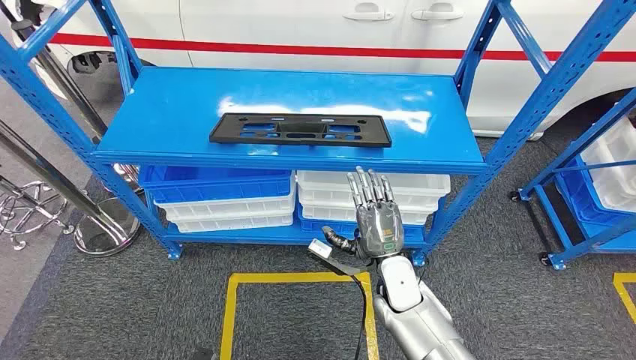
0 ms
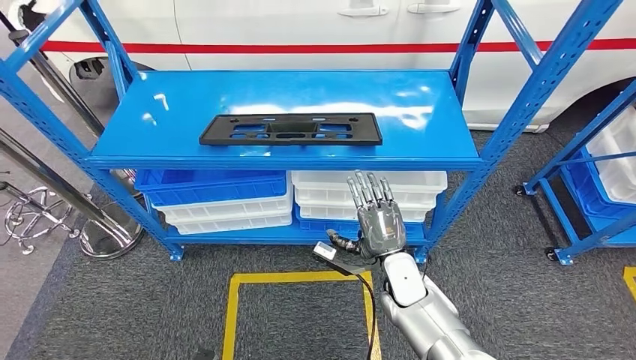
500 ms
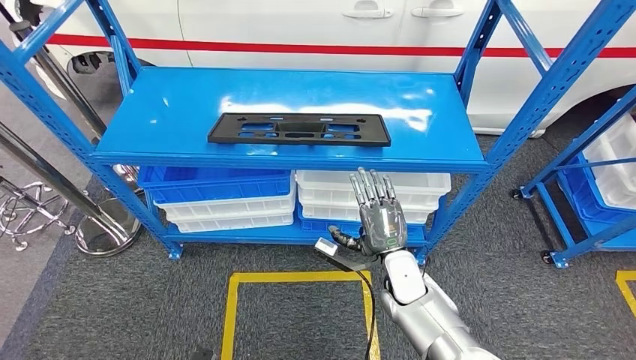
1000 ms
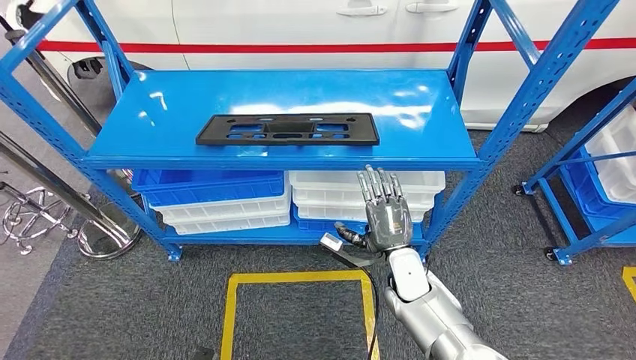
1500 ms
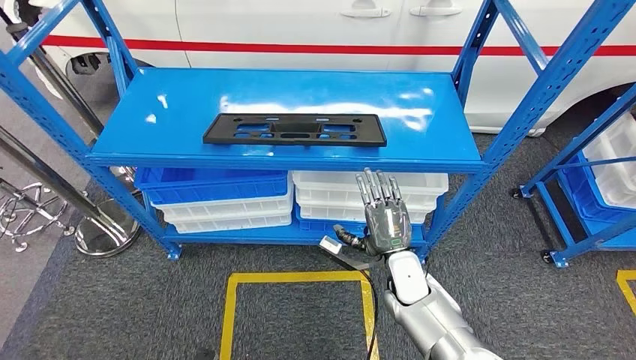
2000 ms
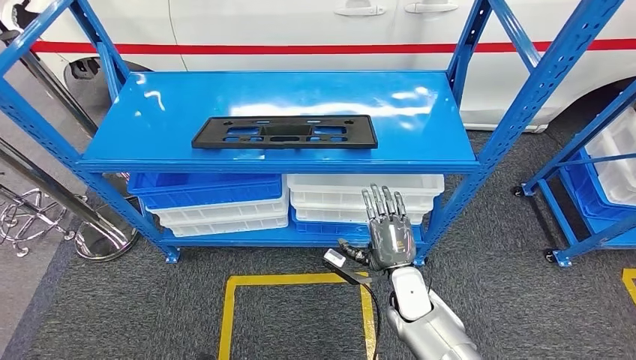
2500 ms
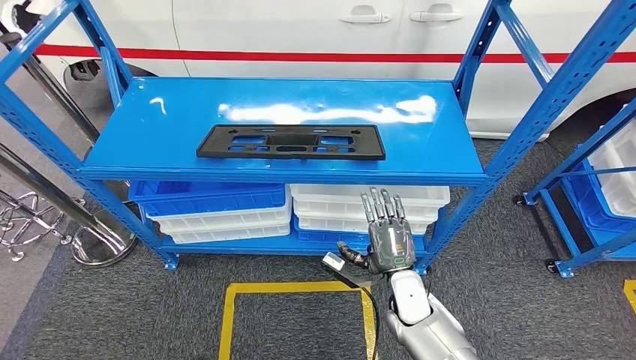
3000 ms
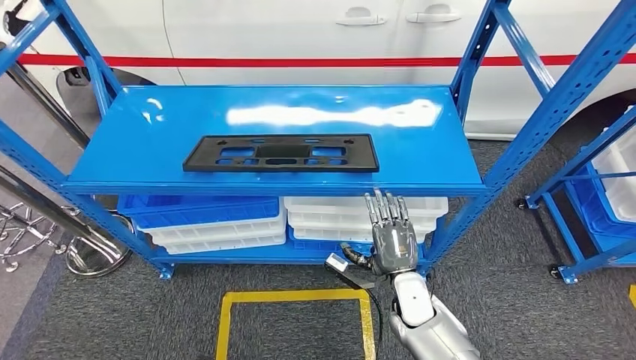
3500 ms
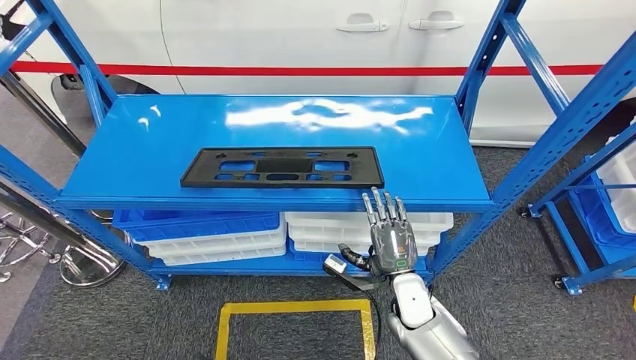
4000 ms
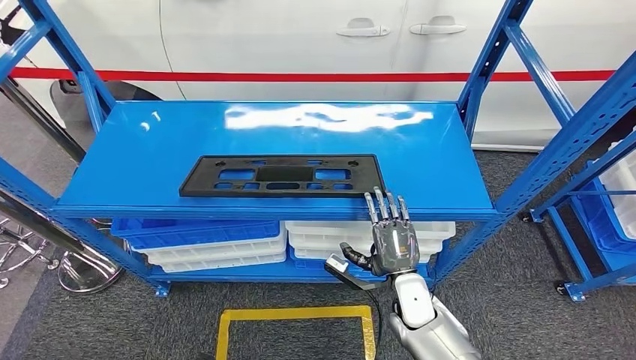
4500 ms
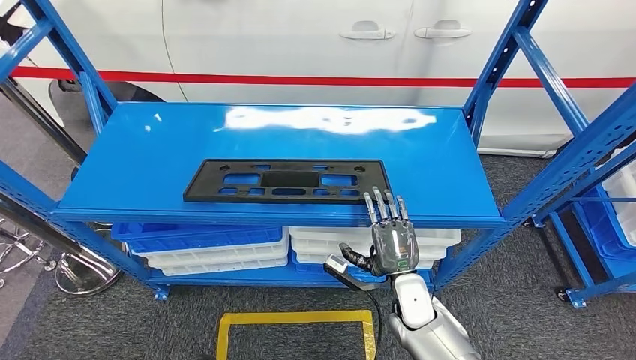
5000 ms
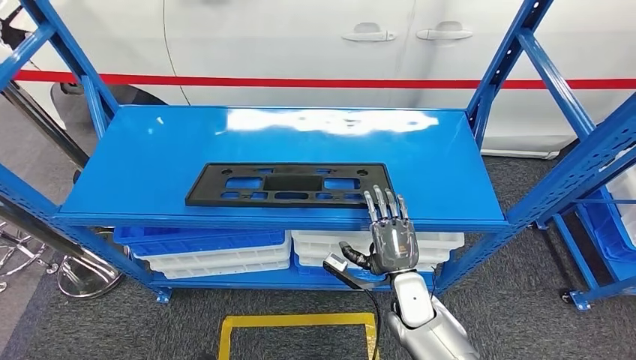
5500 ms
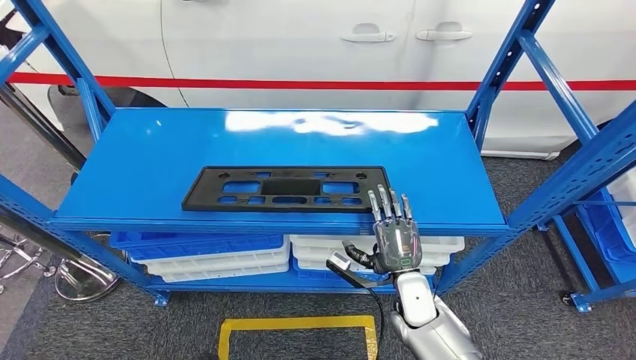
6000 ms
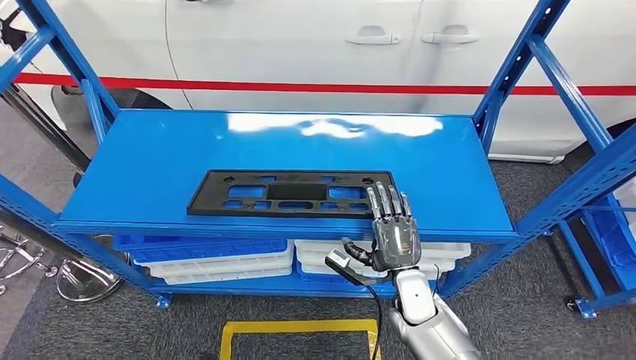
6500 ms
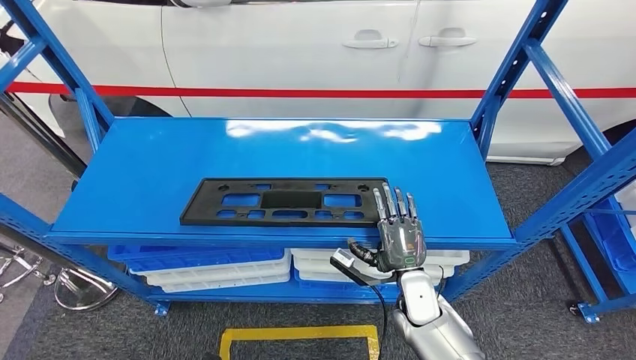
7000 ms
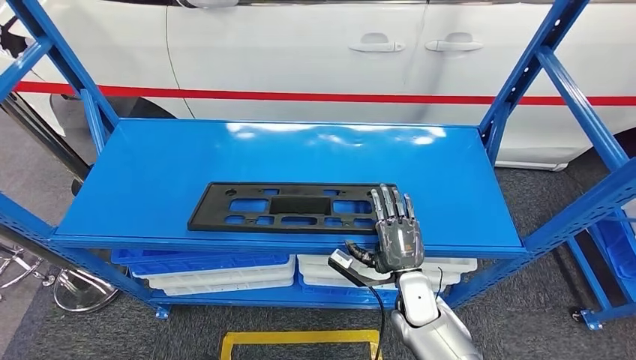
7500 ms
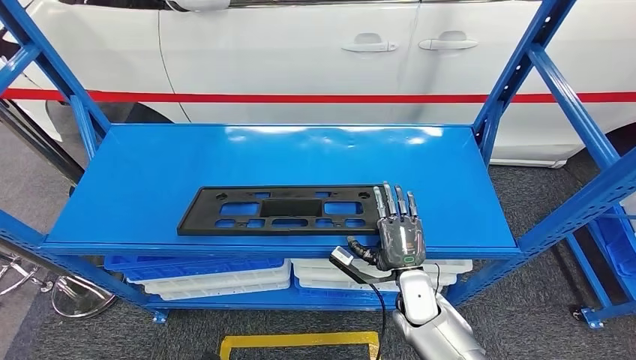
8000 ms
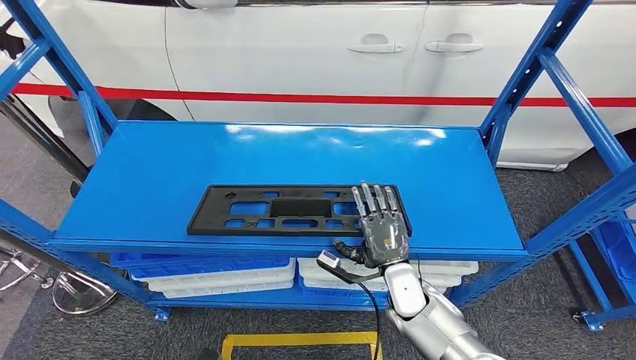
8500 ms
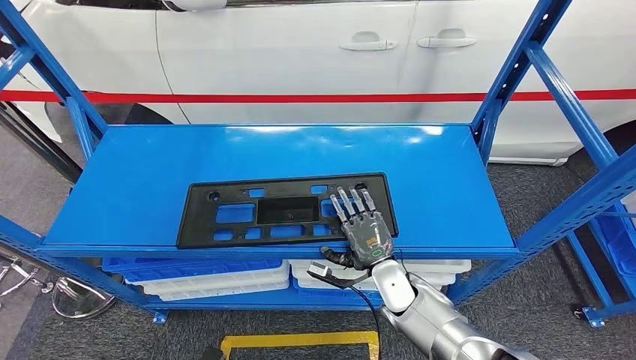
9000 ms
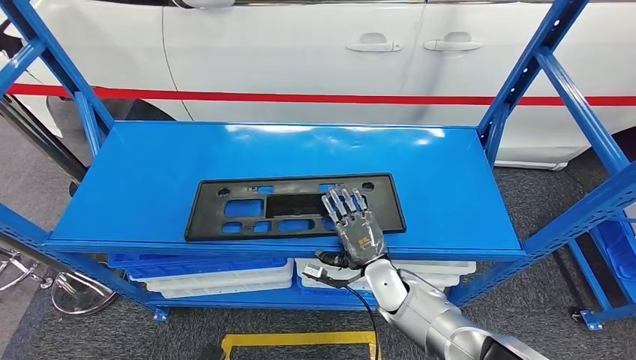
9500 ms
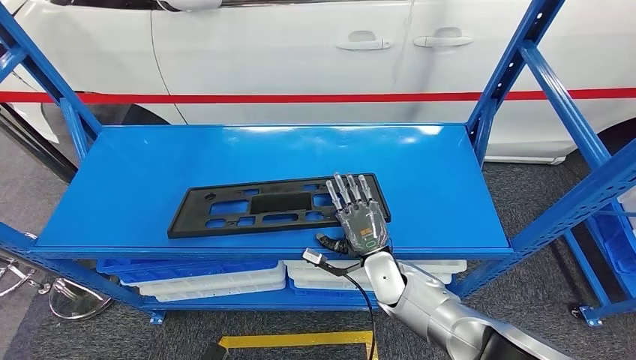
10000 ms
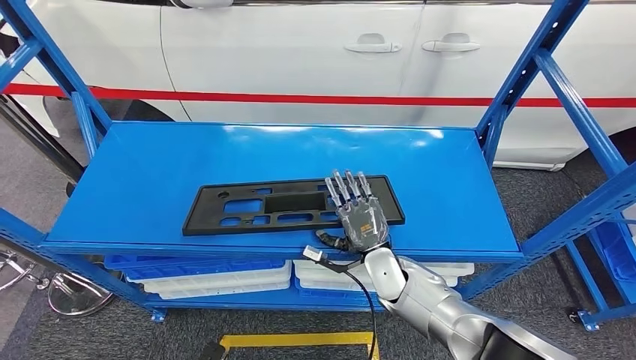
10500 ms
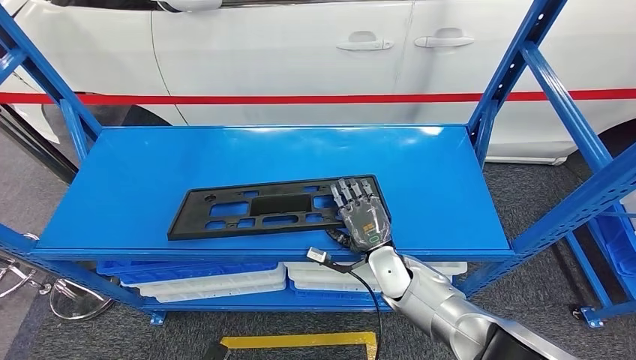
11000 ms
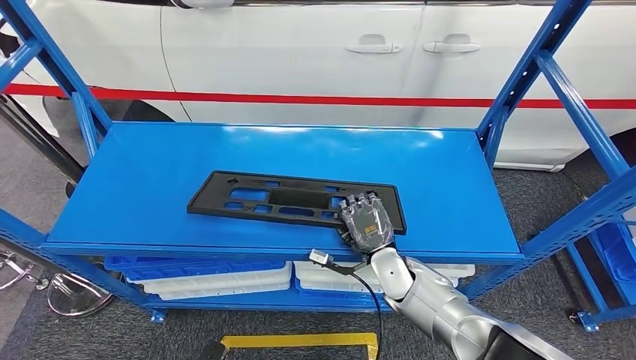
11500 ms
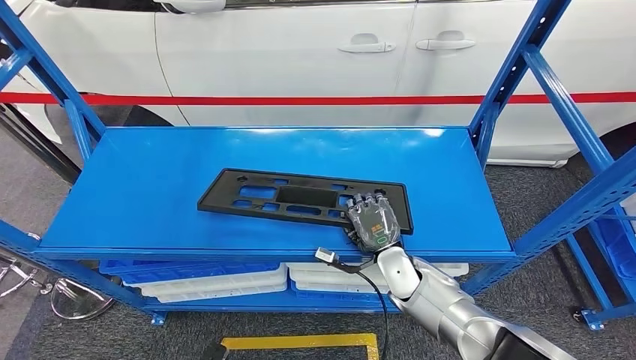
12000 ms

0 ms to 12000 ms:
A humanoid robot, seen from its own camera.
10000 ms to 12000 ms: There are only small adjustments of the hands.

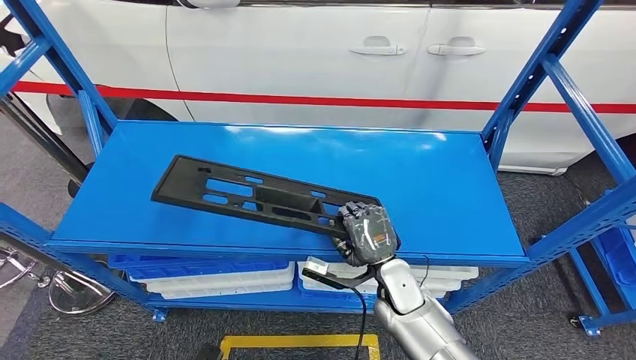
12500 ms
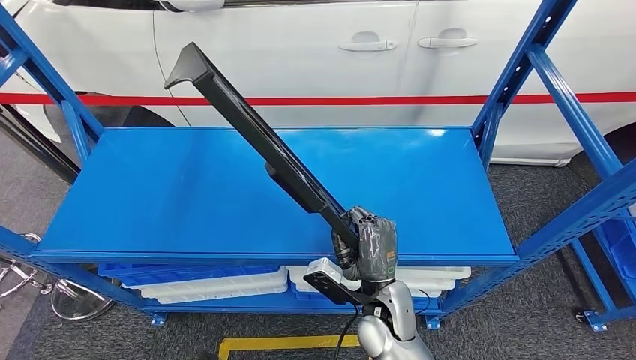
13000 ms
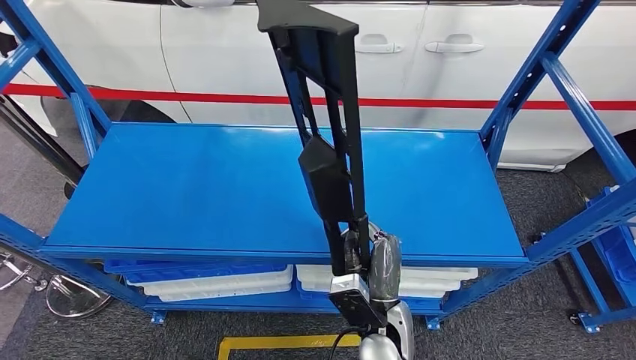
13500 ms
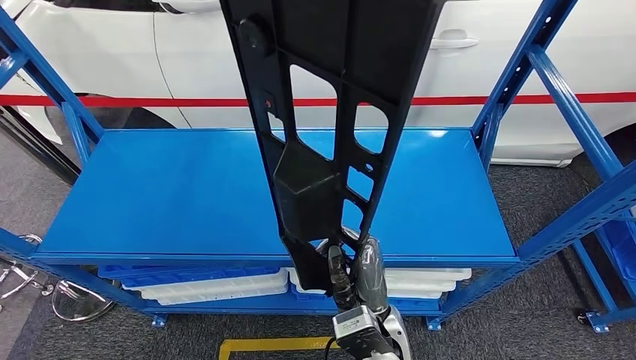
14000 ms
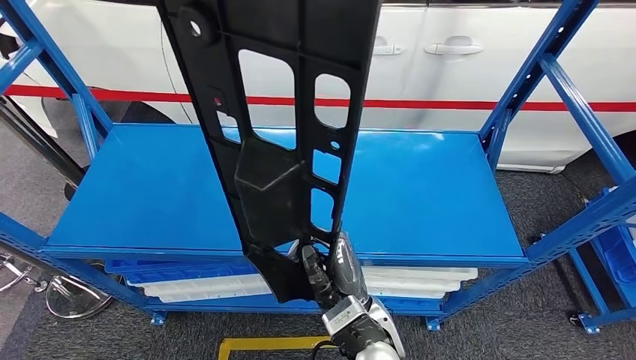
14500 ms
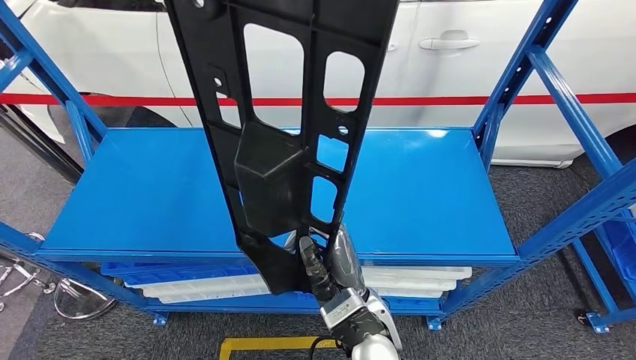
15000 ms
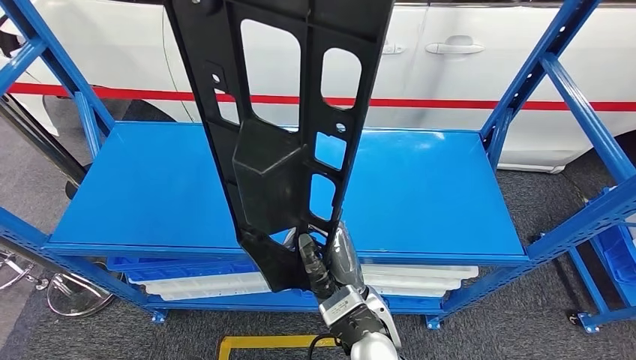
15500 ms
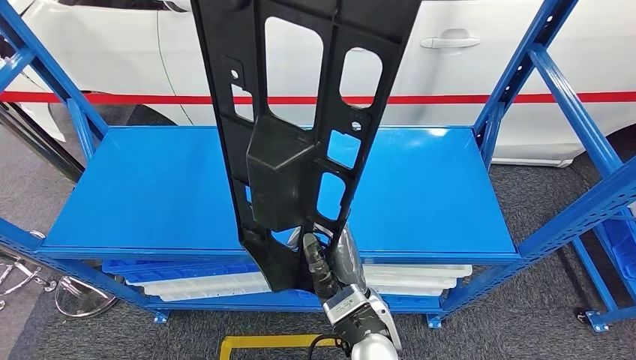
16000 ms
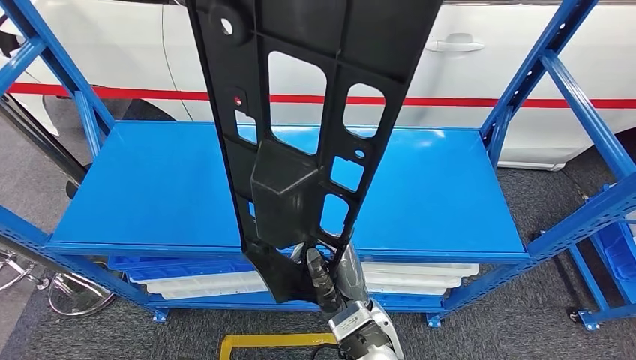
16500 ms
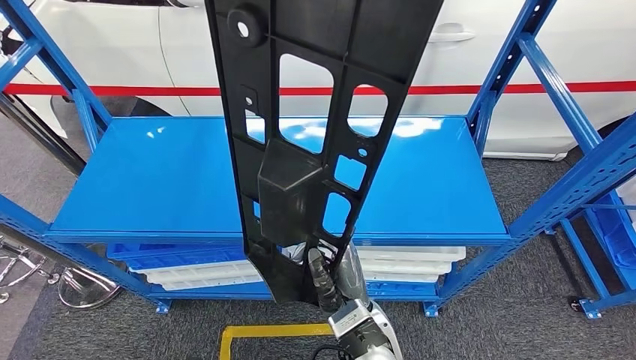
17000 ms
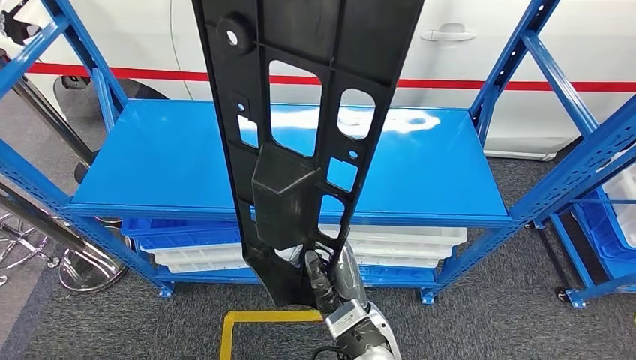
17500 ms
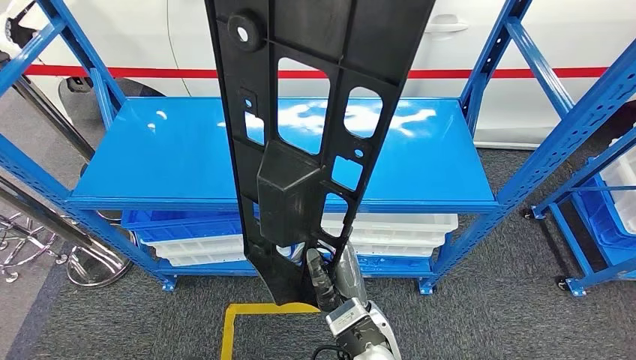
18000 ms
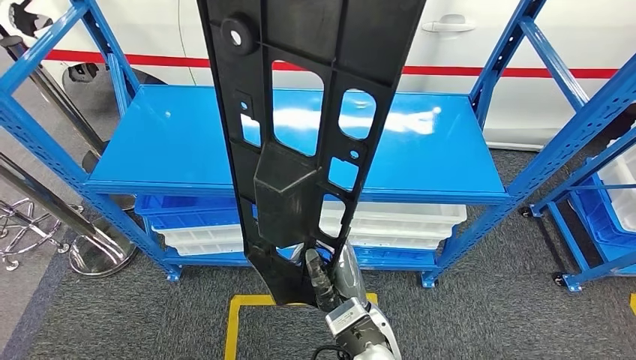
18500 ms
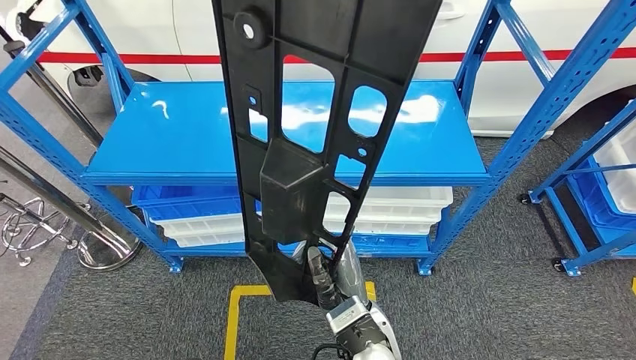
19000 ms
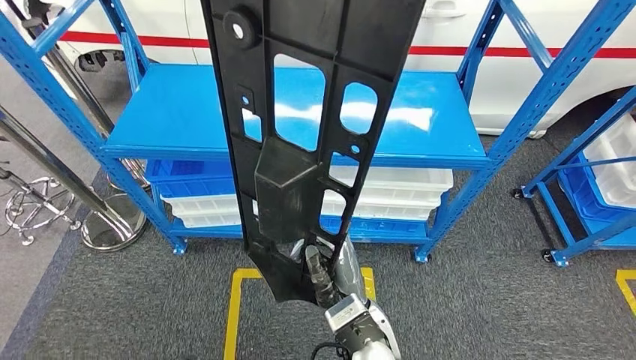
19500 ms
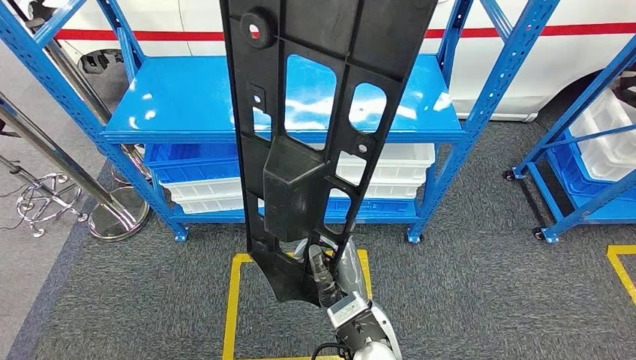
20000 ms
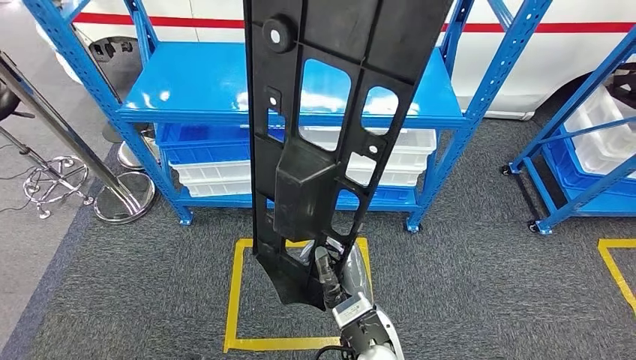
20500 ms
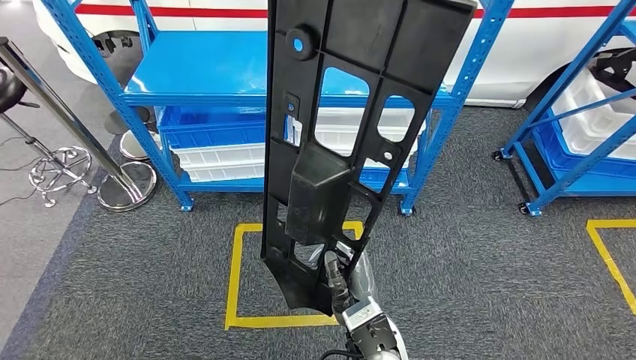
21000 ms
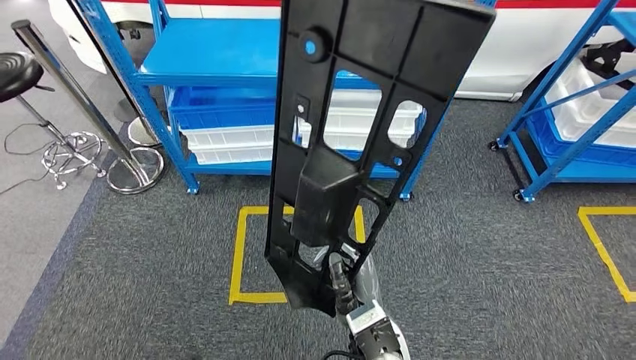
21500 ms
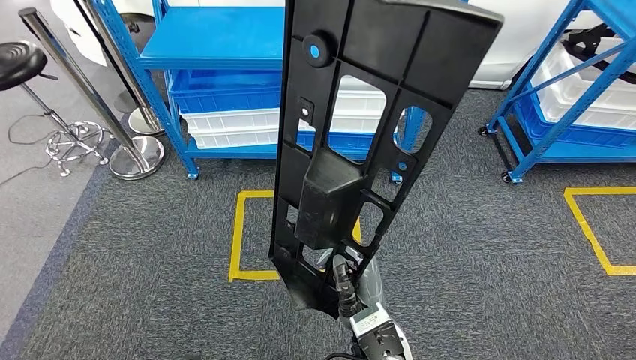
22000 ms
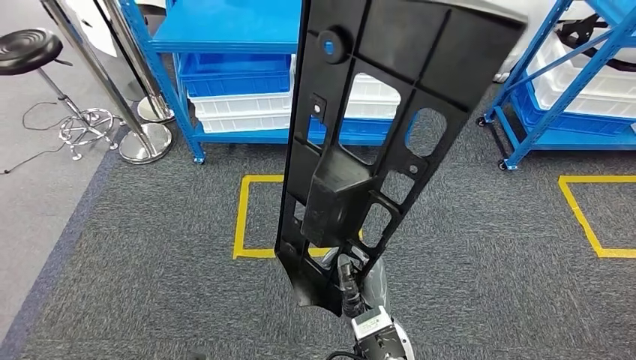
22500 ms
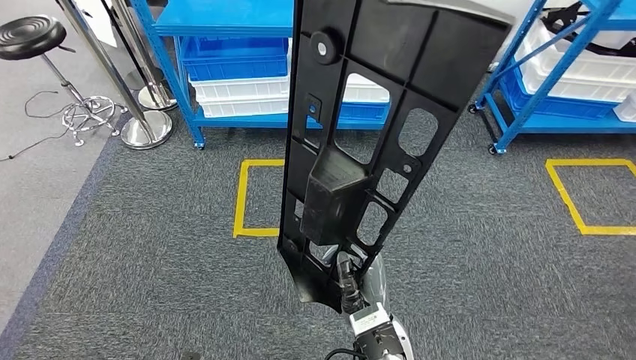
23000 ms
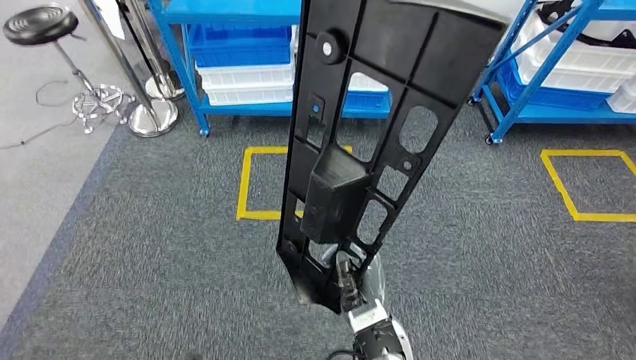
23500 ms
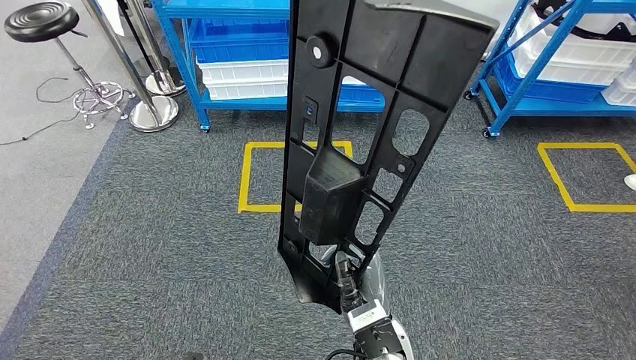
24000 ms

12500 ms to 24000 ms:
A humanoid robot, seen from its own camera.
Step, 12500 ms to 17500 ms: Pick up the large material from the shelf.
